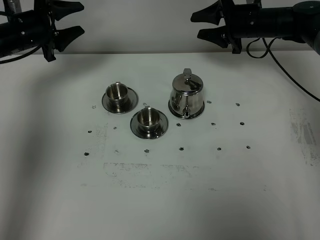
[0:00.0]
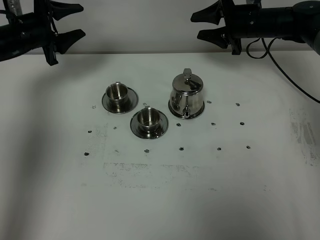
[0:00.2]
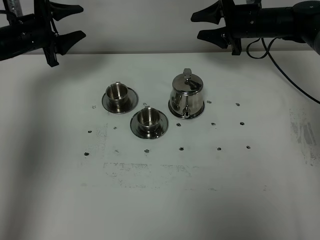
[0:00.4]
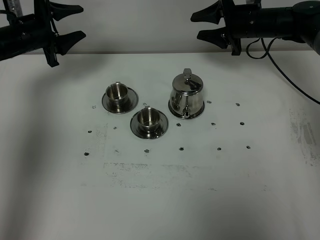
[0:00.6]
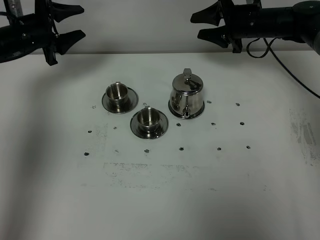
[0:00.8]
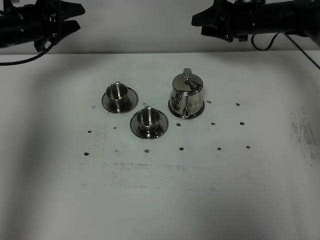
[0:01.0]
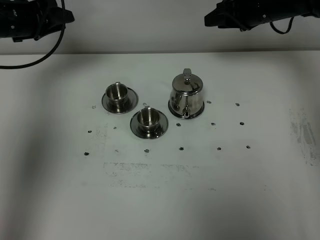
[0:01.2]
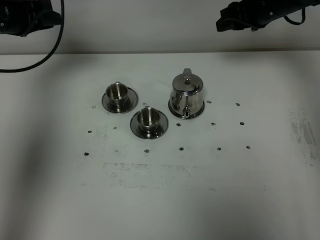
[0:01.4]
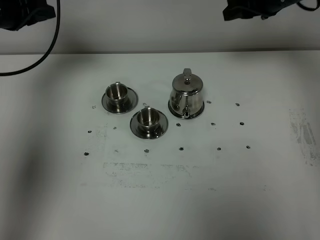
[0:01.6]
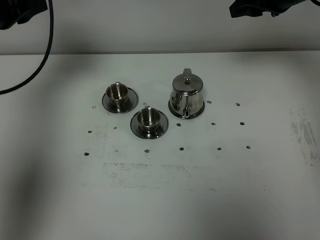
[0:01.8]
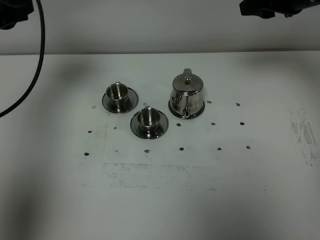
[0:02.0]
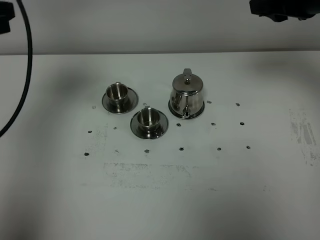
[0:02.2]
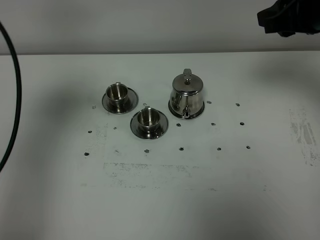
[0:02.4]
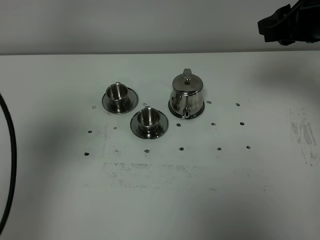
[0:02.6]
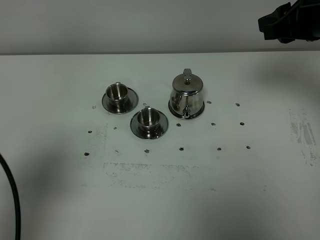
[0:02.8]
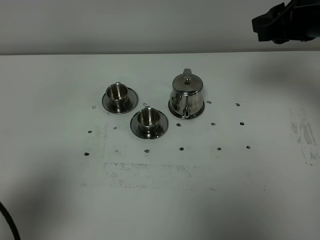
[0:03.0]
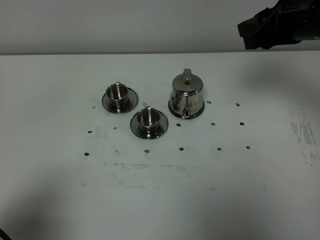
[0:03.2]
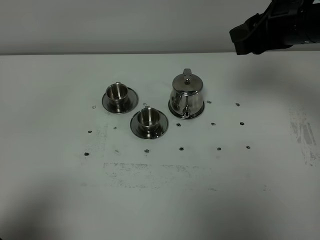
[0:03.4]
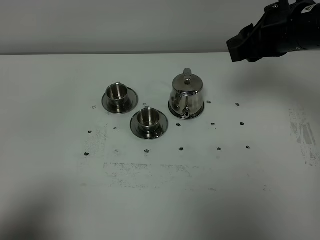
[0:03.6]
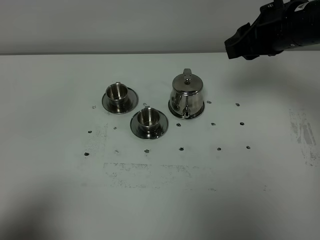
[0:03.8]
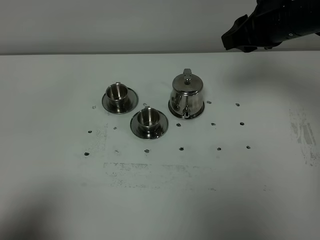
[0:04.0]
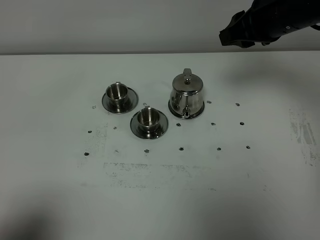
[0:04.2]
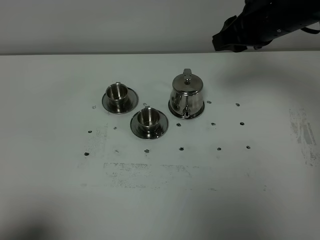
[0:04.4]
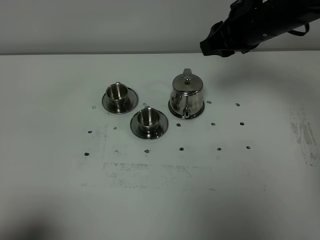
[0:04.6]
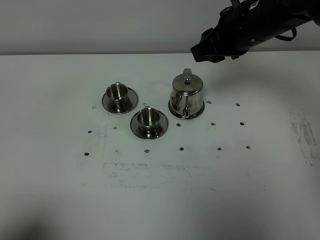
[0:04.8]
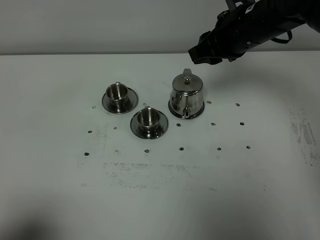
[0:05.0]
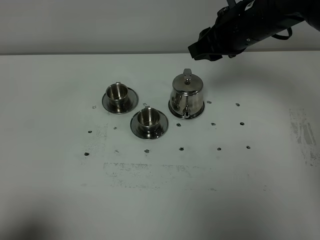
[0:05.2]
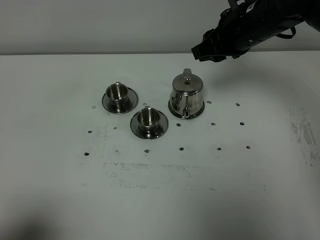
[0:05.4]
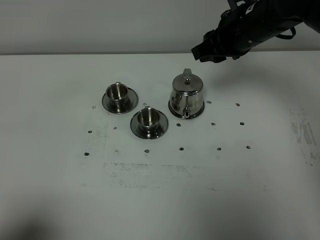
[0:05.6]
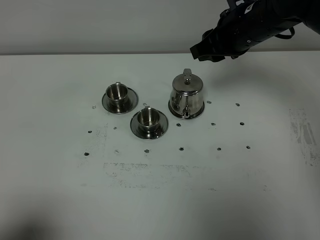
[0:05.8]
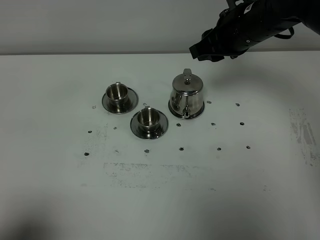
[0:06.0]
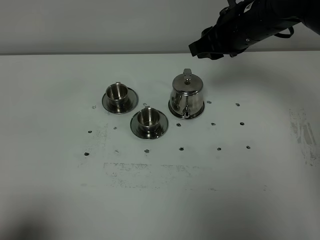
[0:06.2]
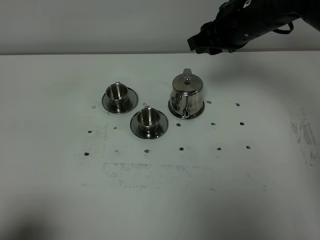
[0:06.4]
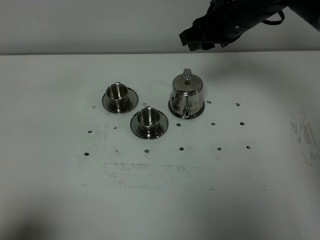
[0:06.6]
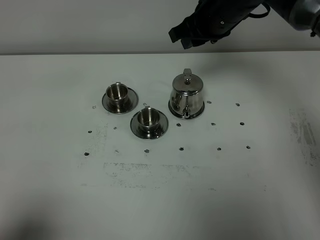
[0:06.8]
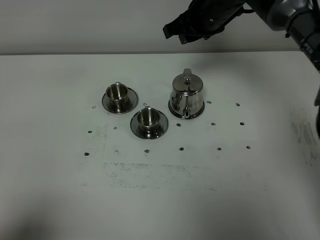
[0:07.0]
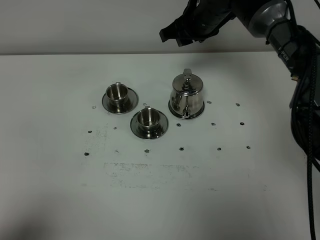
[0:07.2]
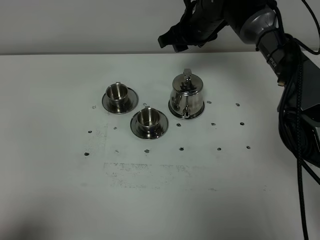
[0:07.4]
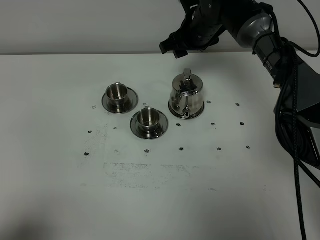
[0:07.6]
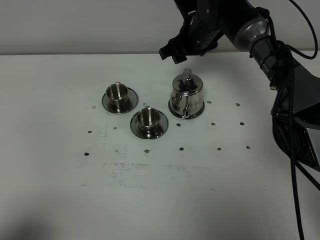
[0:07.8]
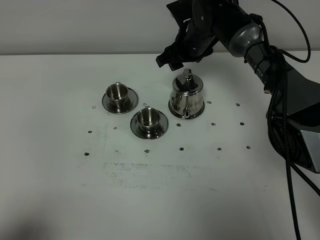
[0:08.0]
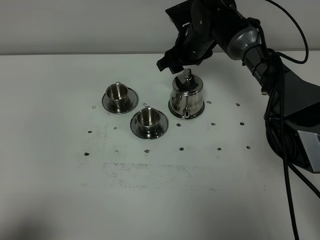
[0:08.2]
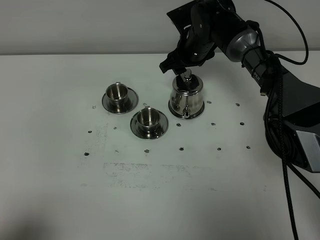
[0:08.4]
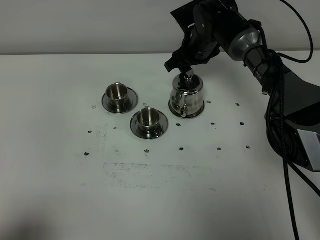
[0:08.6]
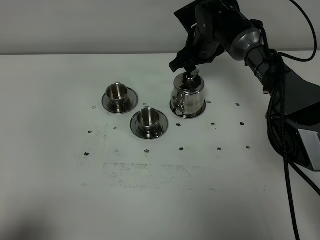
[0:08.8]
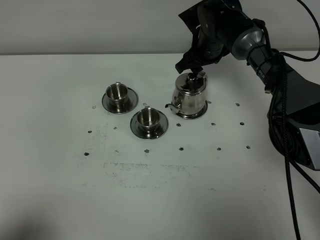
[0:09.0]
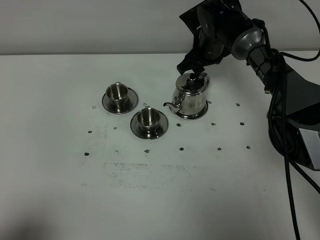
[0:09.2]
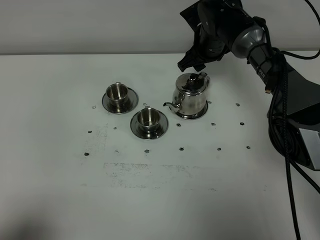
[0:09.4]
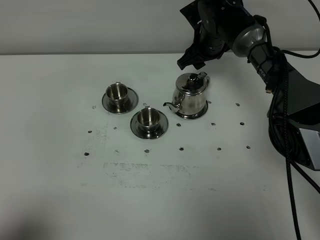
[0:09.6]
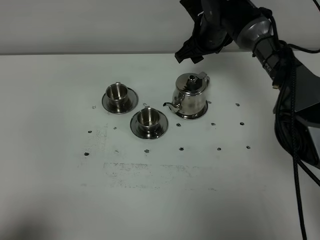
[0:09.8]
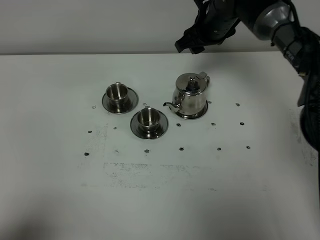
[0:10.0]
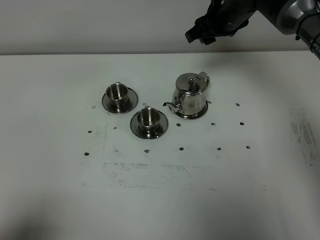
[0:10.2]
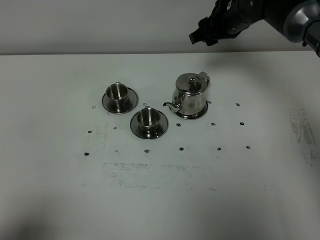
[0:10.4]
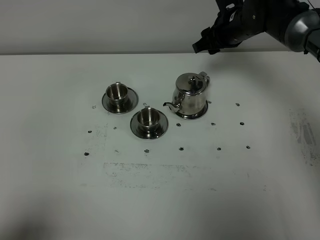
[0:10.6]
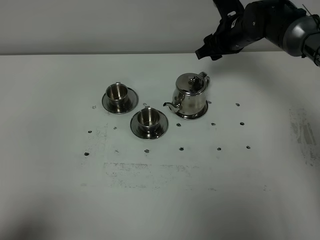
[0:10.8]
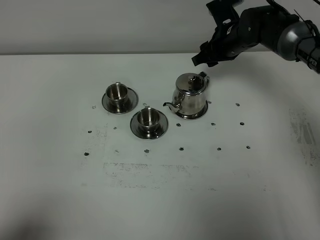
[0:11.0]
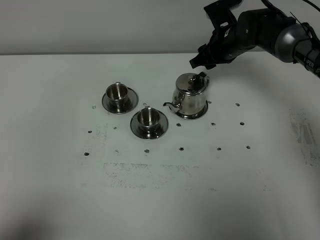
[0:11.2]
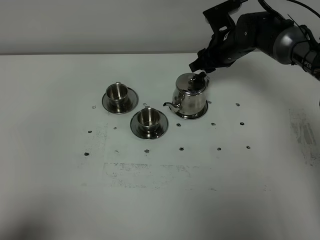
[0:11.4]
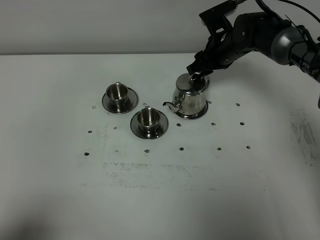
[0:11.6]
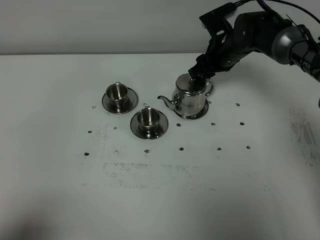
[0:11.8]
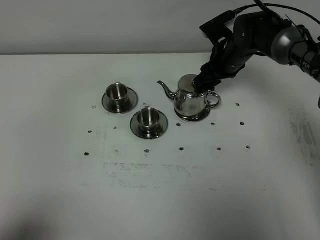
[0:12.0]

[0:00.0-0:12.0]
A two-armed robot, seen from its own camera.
Task of the whole recording: grasp the stainless steel teapot and pour the tea into the two stainless steel teacups one by one, put the stainless steel teapot back in its original place.
0:00.0 to 0:01.6: The right gripper travels upward and backward by some 10 cm, while the left gripper shifts about 10 cm upward, and closes its fingers.
0:01.6 to 0:03.0: The right gripper is displaced backward by approximately 15 cm. Meanwhile the left gripper moves backward, some 40 cm.
0:03.0 to 0:04.4: The right gripper shifts some 5 cm to the left, while the left gripper is displaced backward by approximately 5 cm.
0:04.4 to 0:06.0: There are only small adjustments of the grippers.
0:06.0 to 0:07.6: The right gripper travels forward, downward and to the left by about 15 cm, and opens its fingers.
0:07.6 to 0:09.0: The grippers move only a little.
0:09.0 to 0:10.4: The right gripper goes roughly 5 cm upward.
0:10.4 to 0:12.0: The right gripper shifts approximately 10 cm downward.

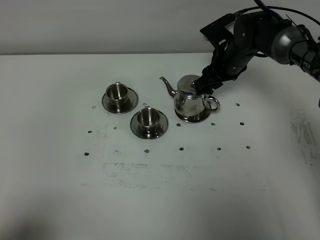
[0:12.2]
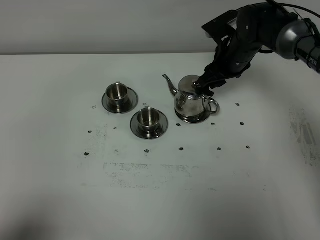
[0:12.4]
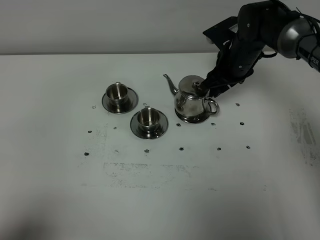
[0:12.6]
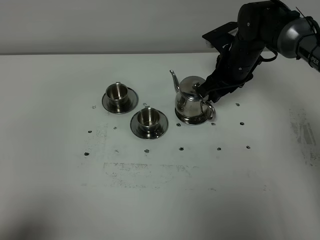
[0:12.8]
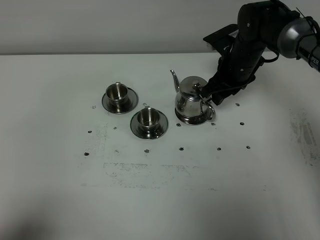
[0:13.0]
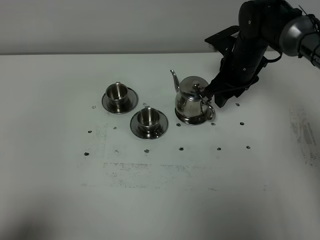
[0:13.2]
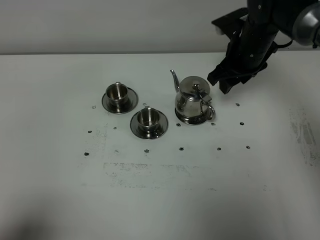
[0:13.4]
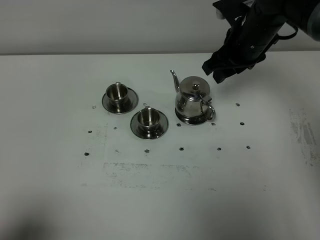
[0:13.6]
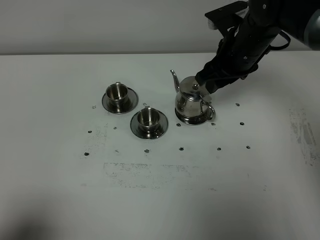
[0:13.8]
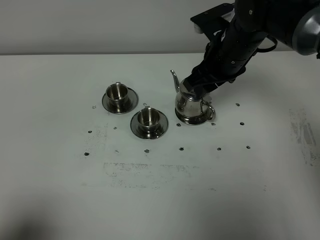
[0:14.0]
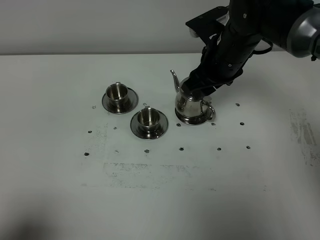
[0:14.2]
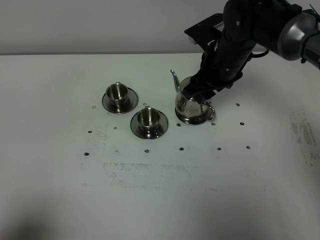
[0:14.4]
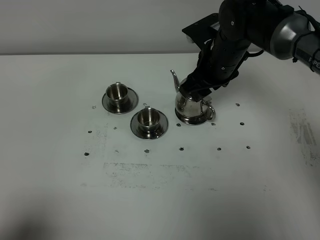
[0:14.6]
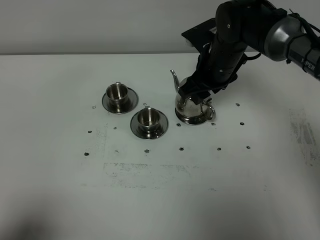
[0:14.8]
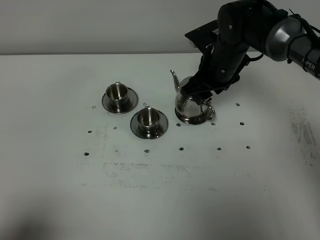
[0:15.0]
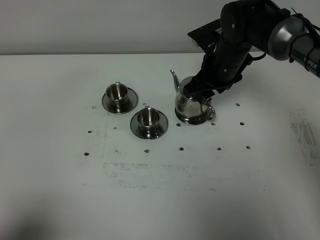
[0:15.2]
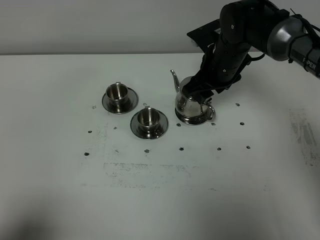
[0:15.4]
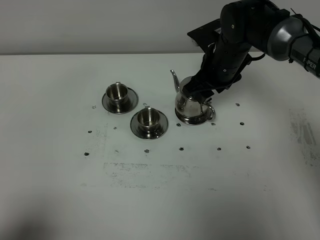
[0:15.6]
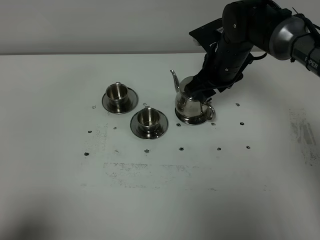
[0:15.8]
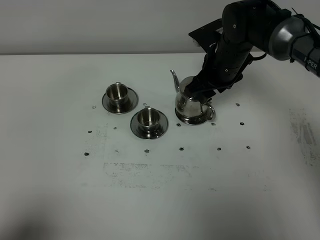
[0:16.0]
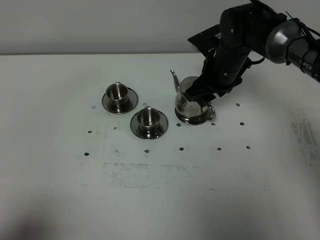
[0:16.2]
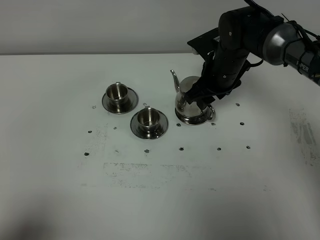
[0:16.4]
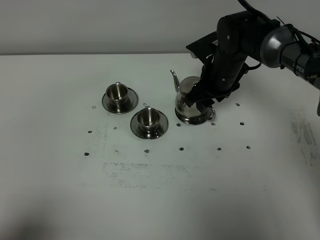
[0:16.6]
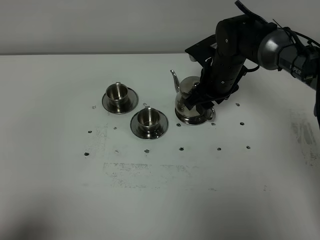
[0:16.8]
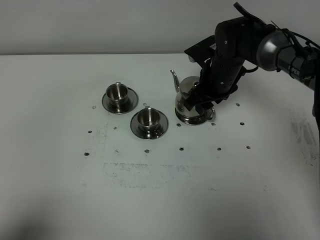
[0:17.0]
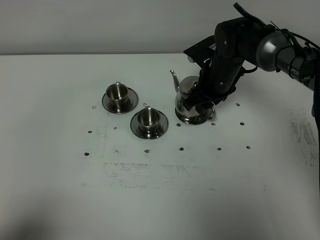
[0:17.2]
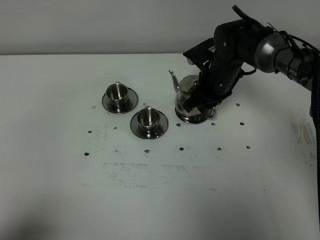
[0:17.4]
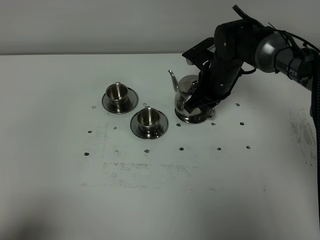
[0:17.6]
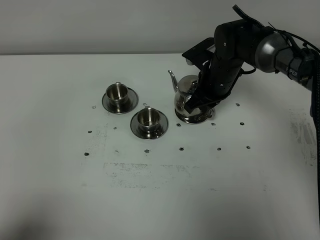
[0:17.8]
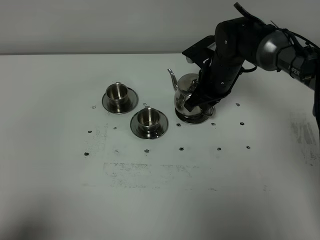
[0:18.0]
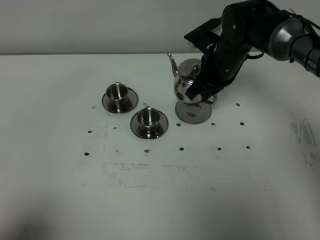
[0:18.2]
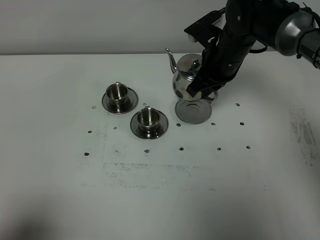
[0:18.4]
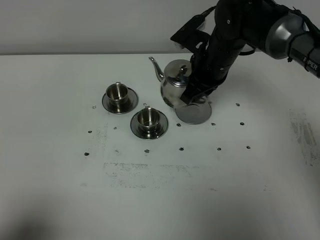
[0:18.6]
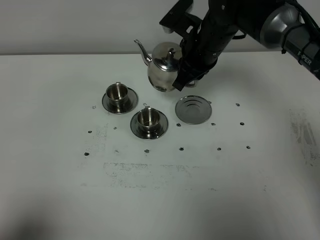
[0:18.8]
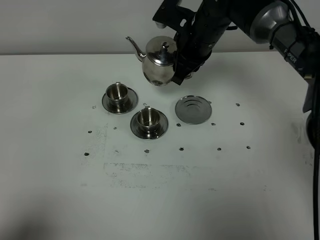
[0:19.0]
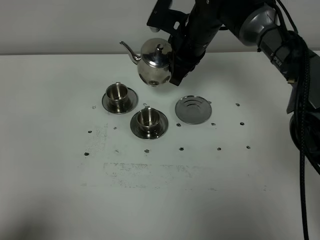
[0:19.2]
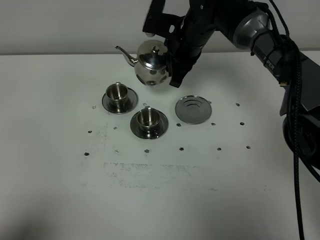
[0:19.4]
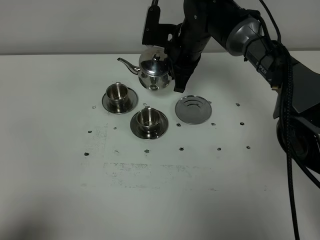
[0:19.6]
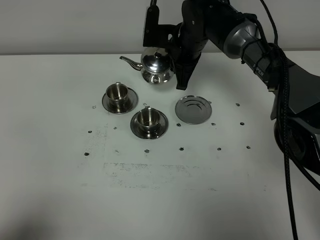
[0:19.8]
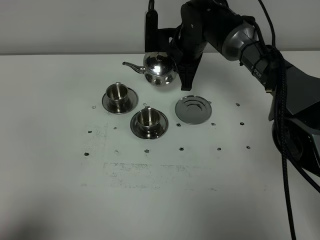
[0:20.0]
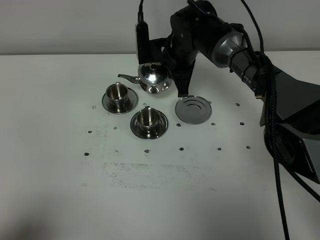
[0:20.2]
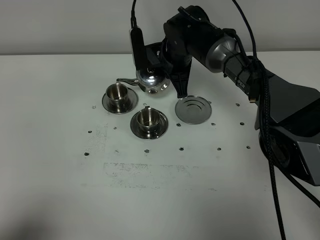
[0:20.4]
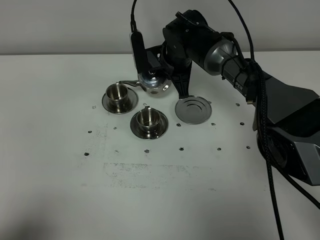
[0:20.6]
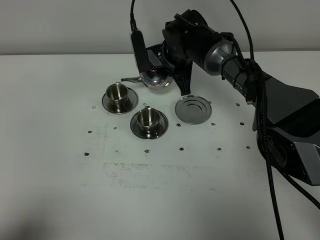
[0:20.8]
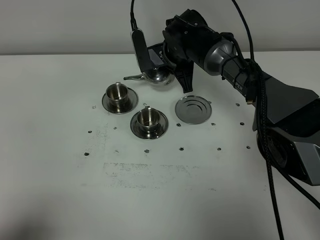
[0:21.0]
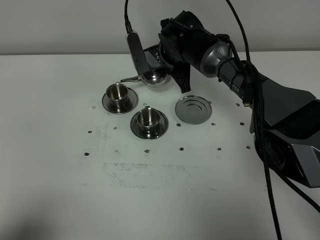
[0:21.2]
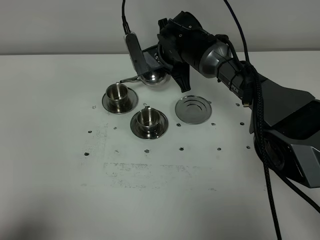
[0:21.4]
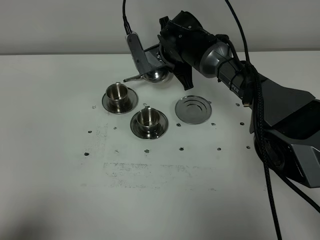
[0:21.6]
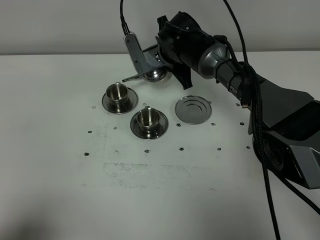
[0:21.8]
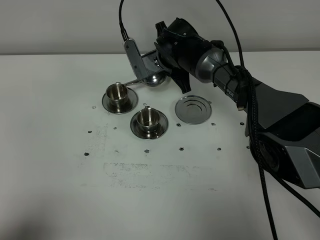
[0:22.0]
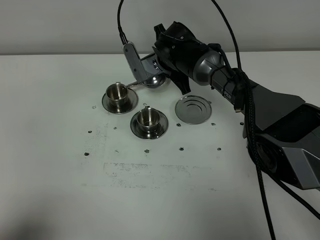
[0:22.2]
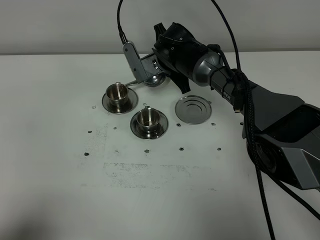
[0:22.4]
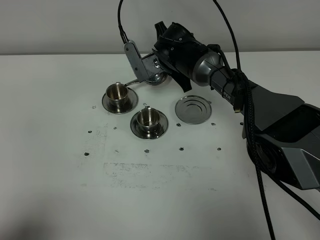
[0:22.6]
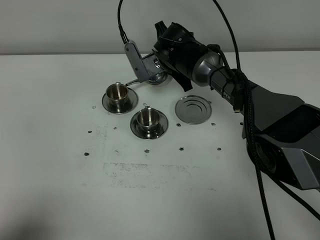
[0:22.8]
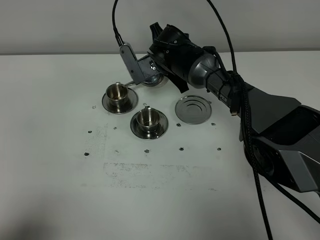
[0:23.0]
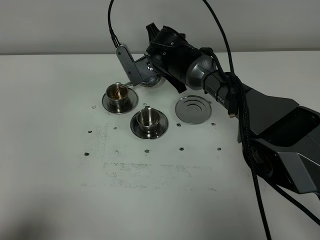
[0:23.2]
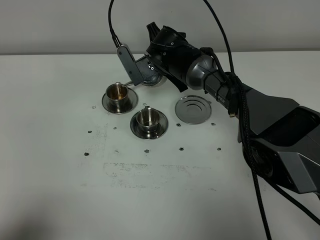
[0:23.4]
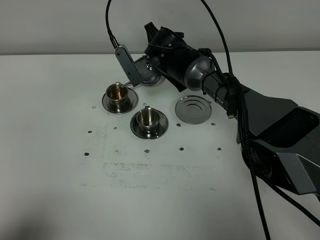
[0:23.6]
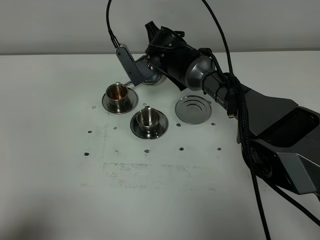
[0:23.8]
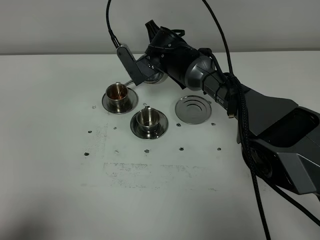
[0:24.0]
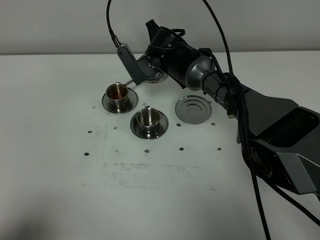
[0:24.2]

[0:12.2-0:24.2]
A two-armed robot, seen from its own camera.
Task of the whole recording: grasp the stainless steel teapot and pour the tea into the two stainless steel teacups one by one, put the stainless steel teapot back in its original place.
Step, 0:12.2 to 0:18.2: Pick up the teapot with the right gripper.
0:12.2 to 0:13.8: The right gripper travels upward and backward by some 10 cm.
0:13.8 to 0:15.2: The right gripper shifts by approximately 5 cm.
0:15.2 to 0:16.6: The grippers move only a little.
0:16.6 to 0:18.2: The right gripper closes.
0:18.2 to 0:19.8: The right gripper goes roughly 10 cm to the left and forward.
0:21.2 to 0:24.2: The grippers move only a little.
